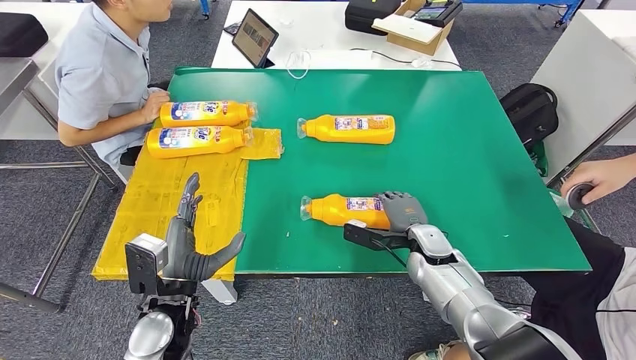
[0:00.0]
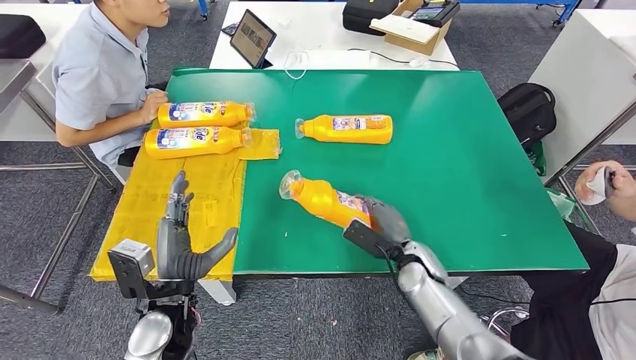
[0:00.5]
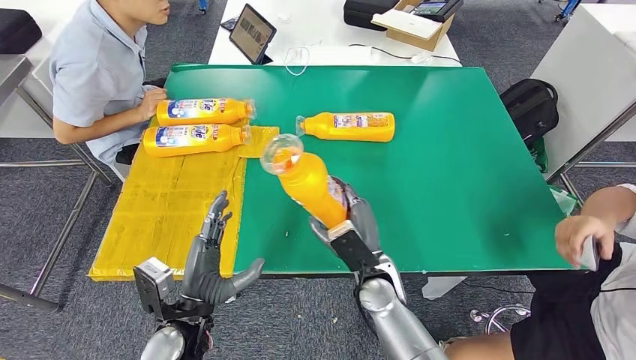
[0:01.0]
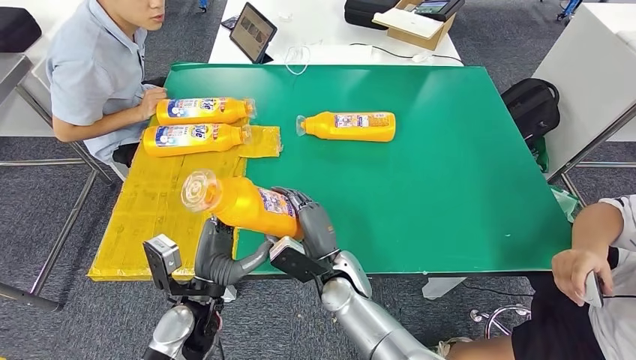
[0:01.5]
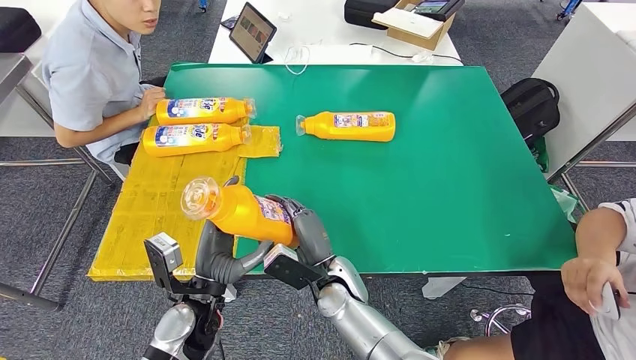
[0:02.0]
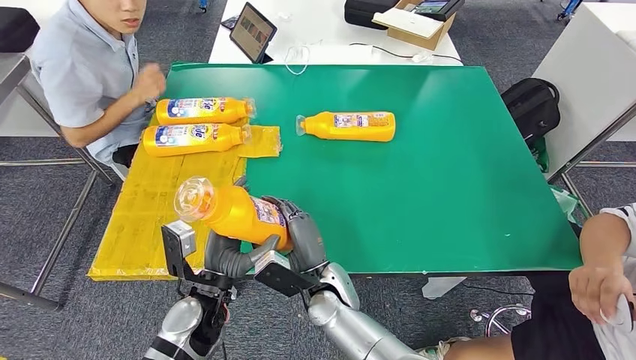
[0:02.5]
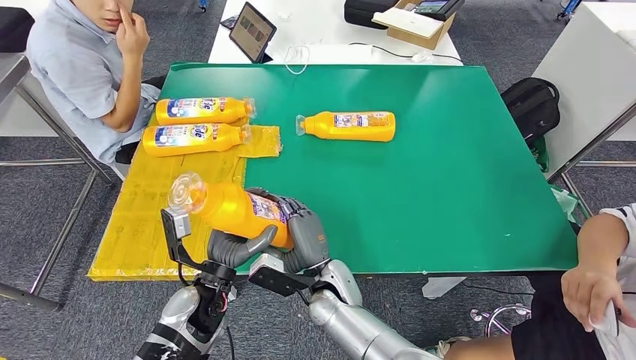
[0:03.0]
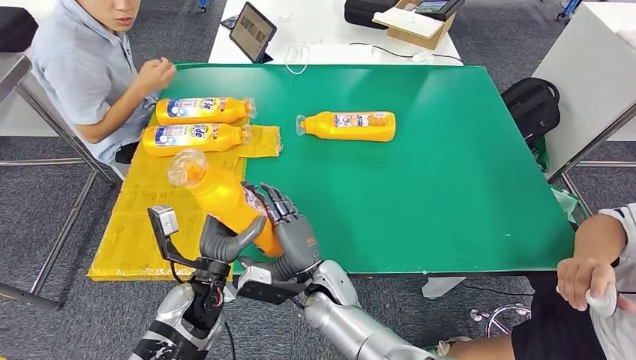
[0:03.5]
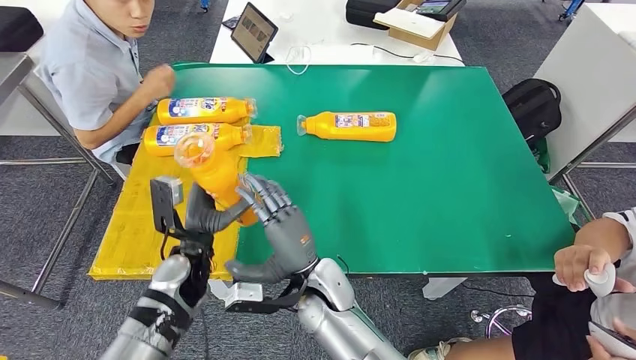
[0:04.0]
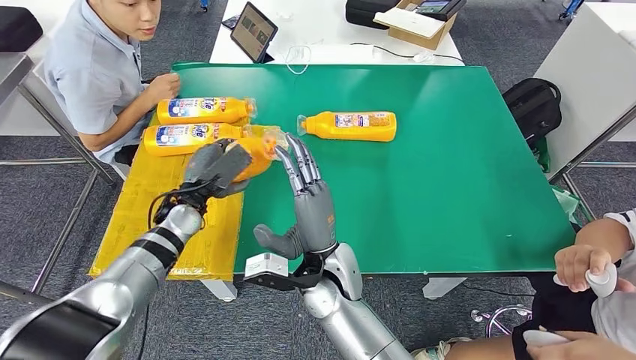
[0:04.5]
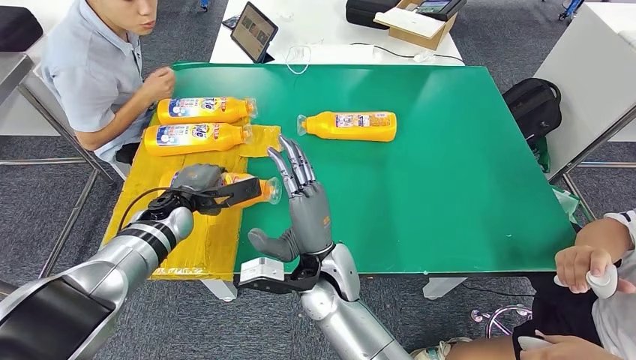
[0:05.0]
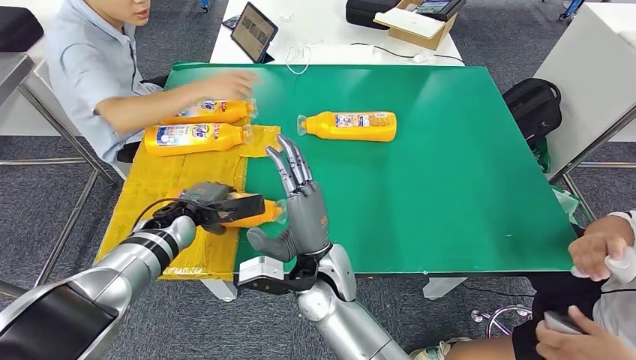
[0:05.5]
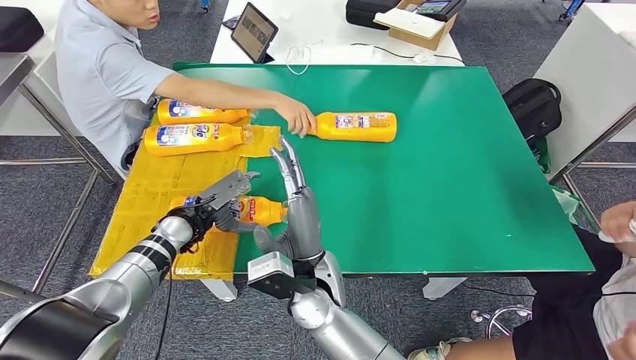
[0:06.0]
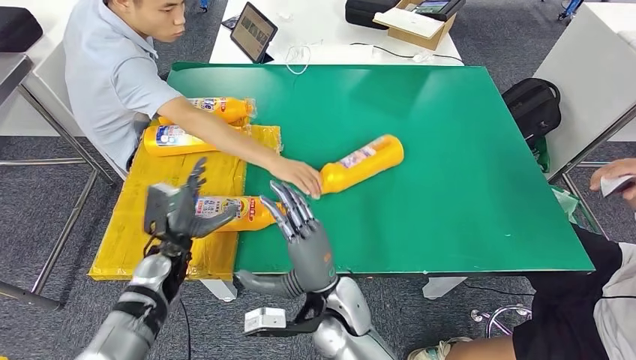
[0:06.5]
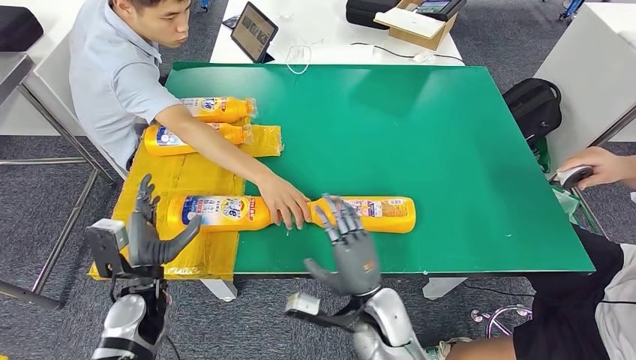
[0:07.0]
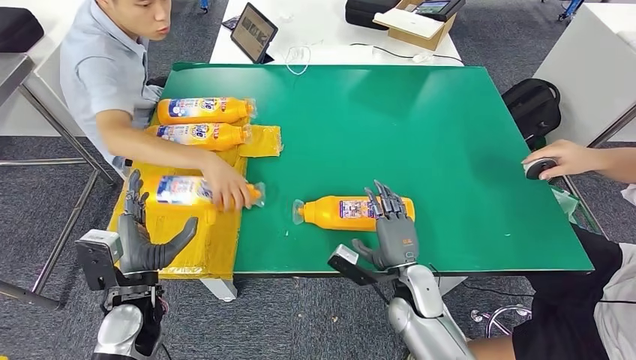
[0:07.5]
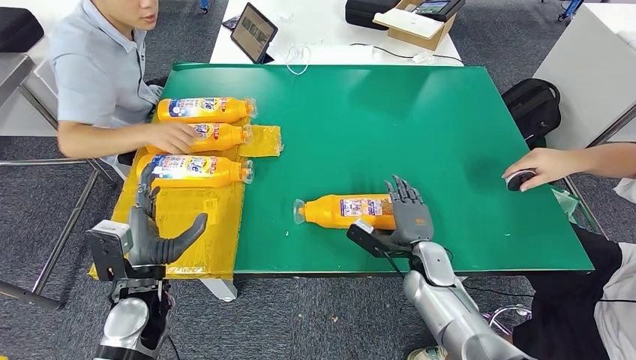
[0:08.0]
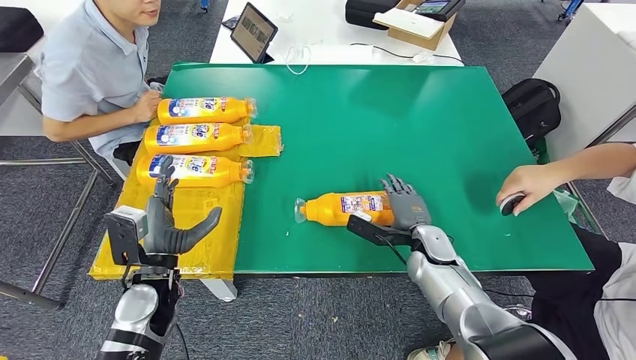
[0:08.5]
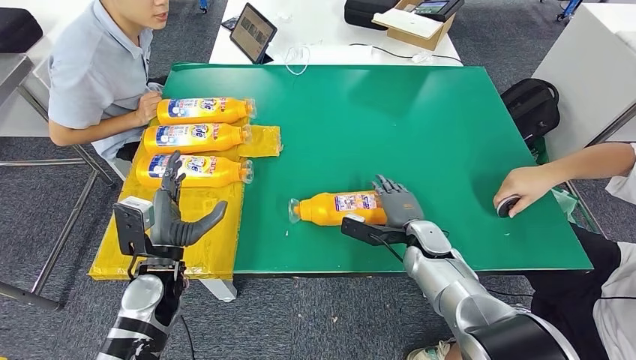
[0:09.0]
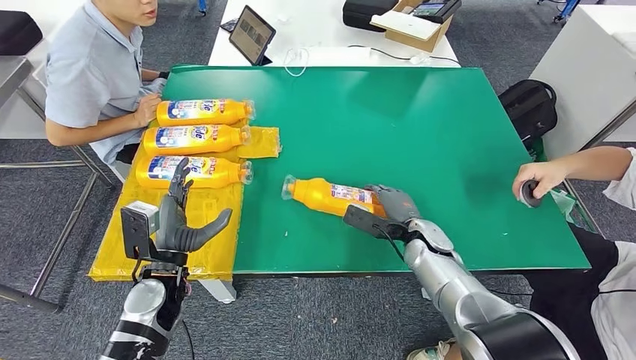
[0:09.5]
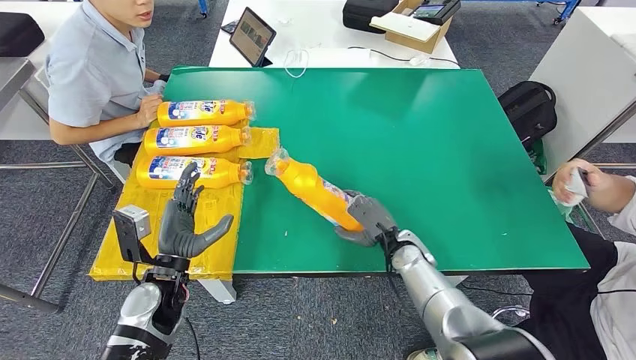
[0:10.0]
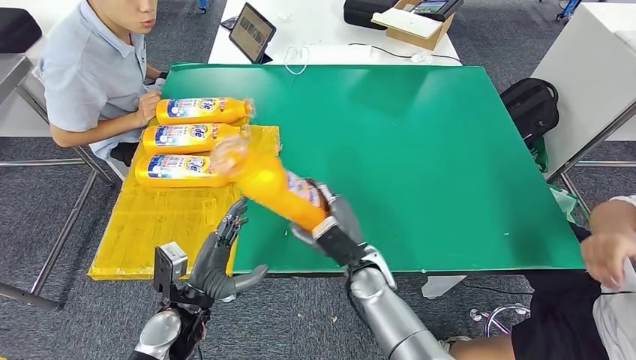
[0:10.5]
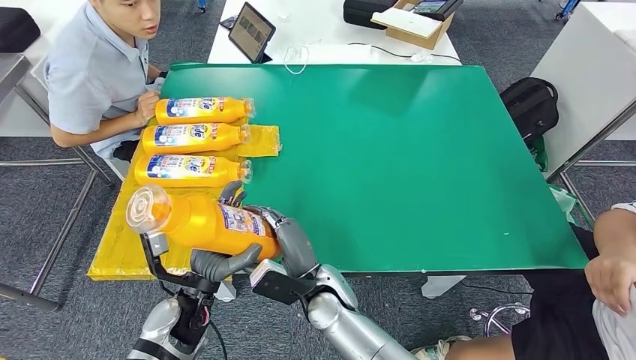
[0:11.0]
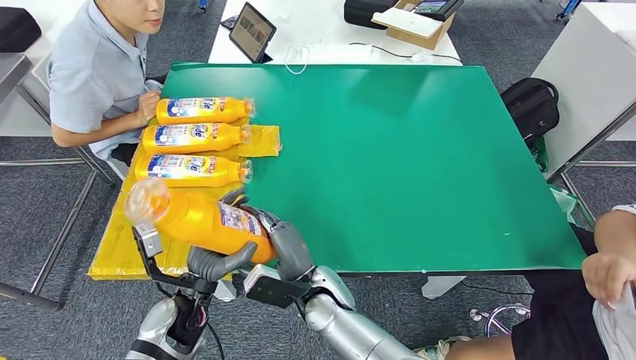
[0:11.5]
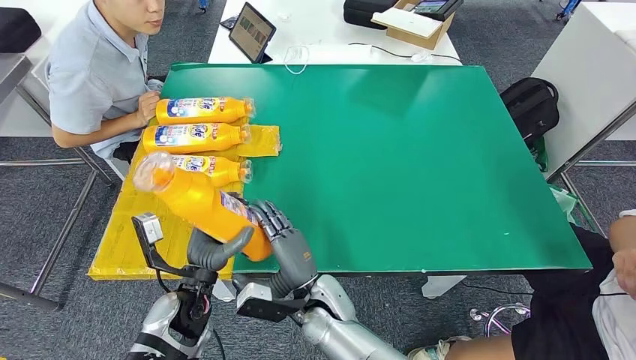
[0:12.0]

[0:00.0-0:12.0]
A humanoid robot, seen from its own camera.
Step, 0:00.0 to 0:02.5: Pick up the fast-moving consumer goods bottle from the table.
Step, 0:03.0 to 0:06.5: Flip the fast-moving consumer goods bottle to the front side.
Step, 0:07.0 to 0:11.5: Pick up the fast-moving consumer goods bottle from the table.
0:02.0 to 0:04.0: The left hand goes about 10 cm forward.

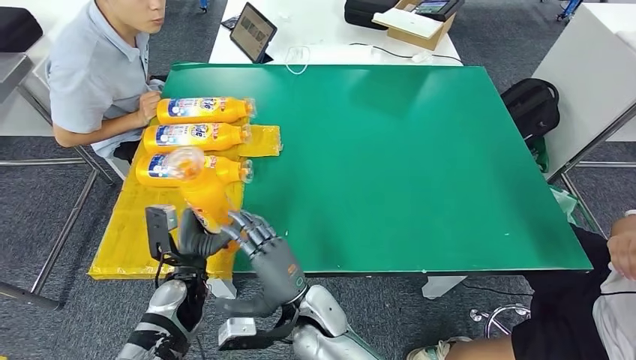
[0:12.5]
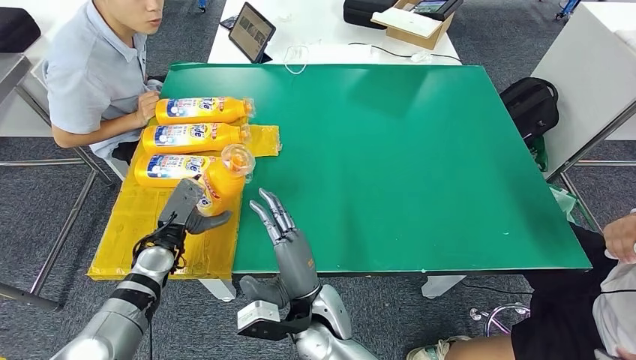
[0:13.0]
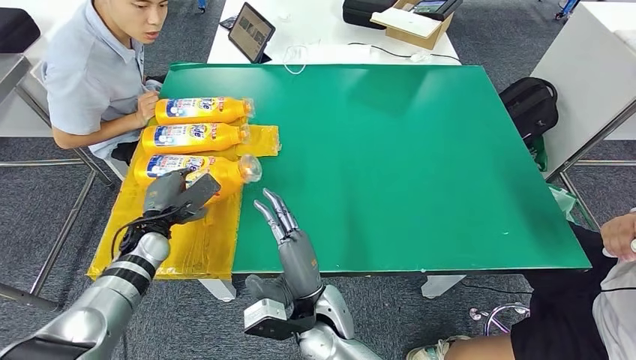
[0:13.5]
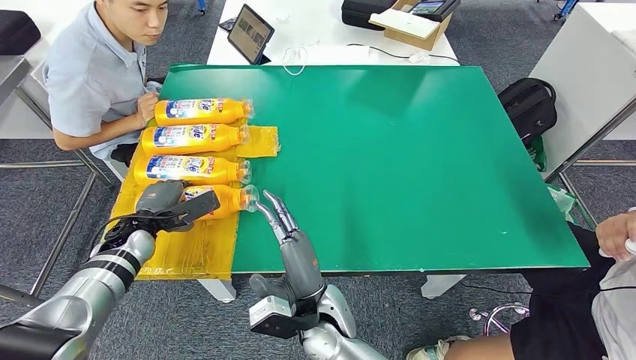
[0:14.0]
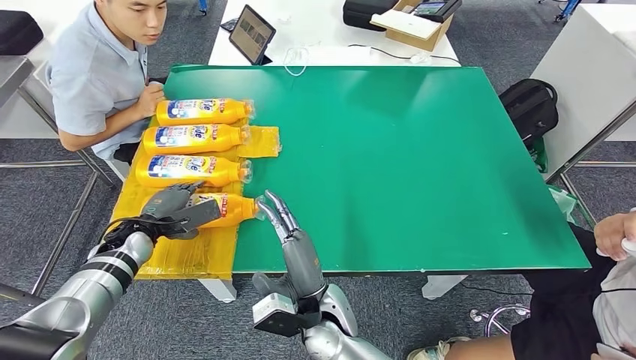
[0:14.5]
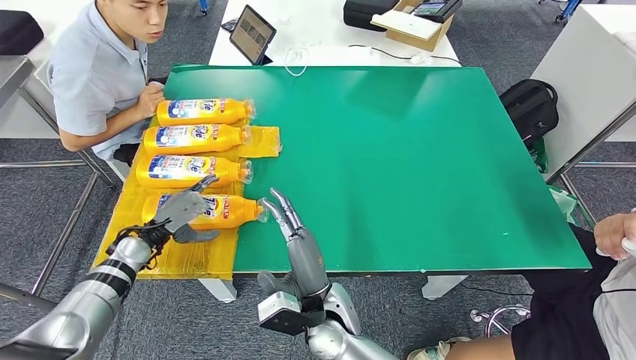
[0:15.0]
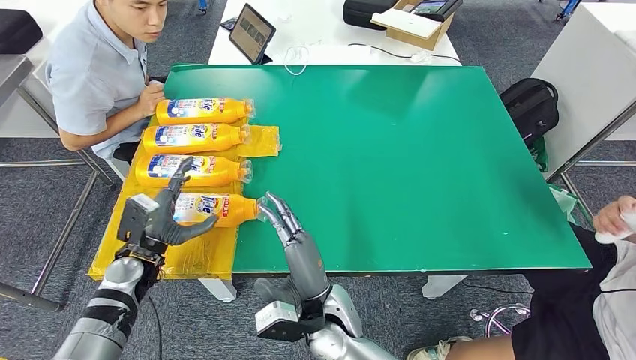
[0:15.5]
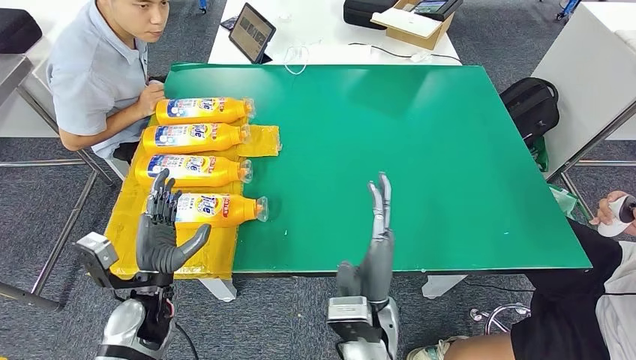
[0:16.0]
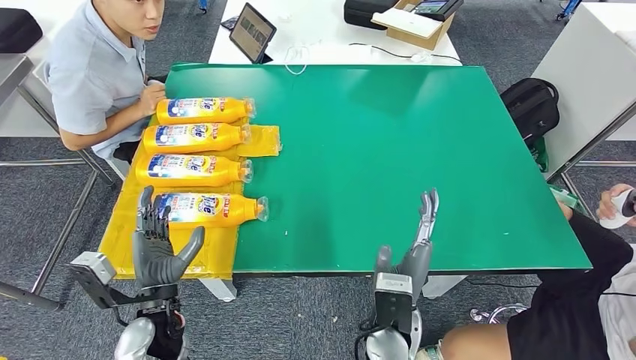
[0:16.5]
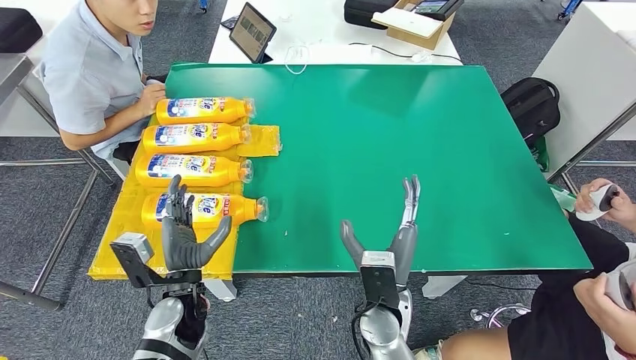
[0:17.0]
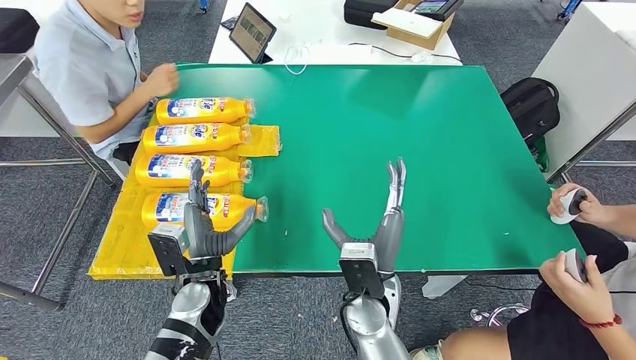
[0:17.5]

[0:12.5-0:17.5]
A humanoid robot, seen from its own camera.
Step, 0:12.5 to 0:17.5: Flip the fast-moving consumer goods bottle to the front side.
